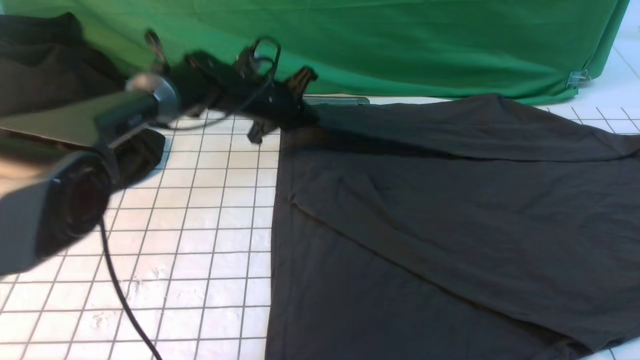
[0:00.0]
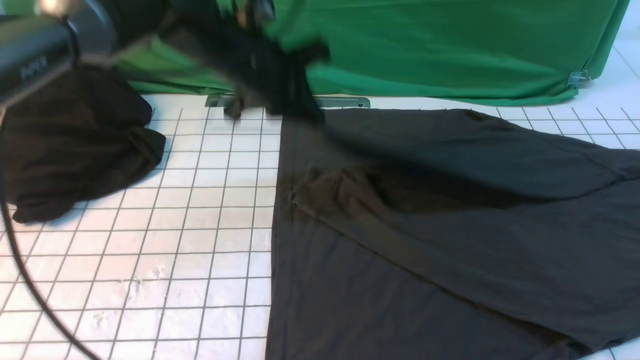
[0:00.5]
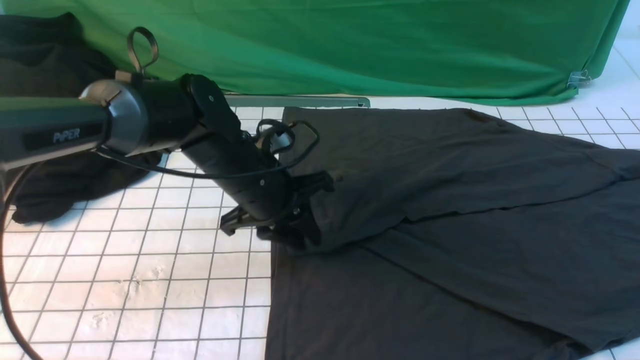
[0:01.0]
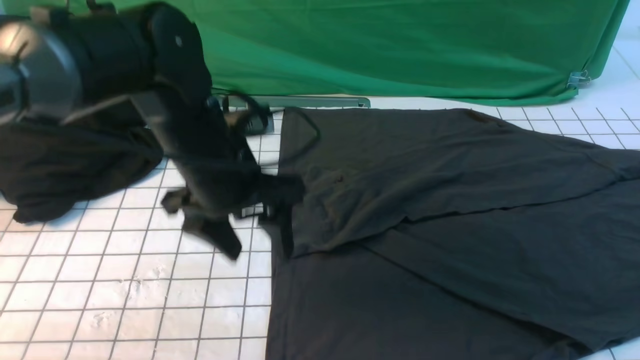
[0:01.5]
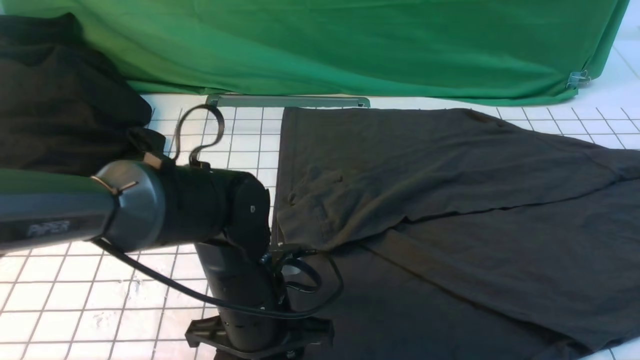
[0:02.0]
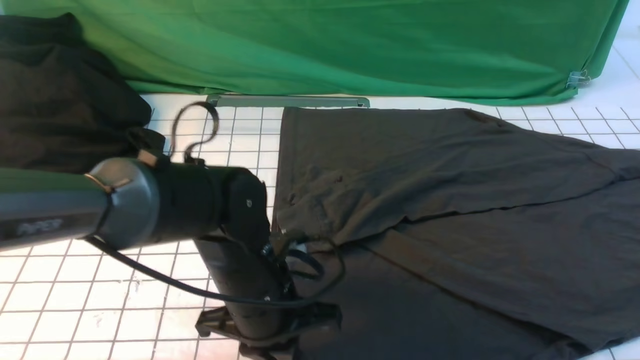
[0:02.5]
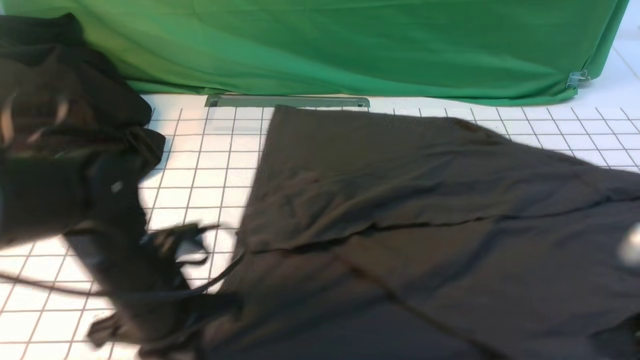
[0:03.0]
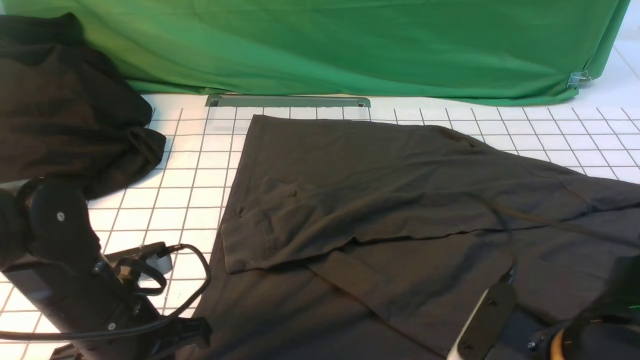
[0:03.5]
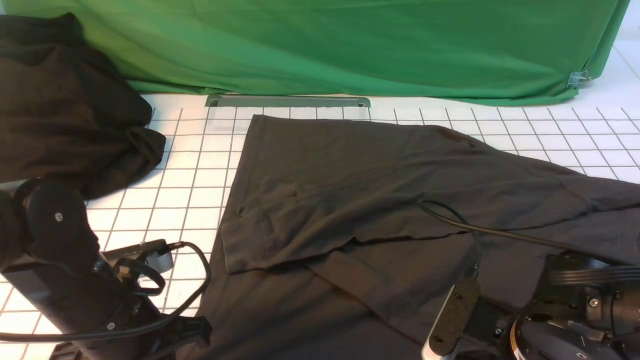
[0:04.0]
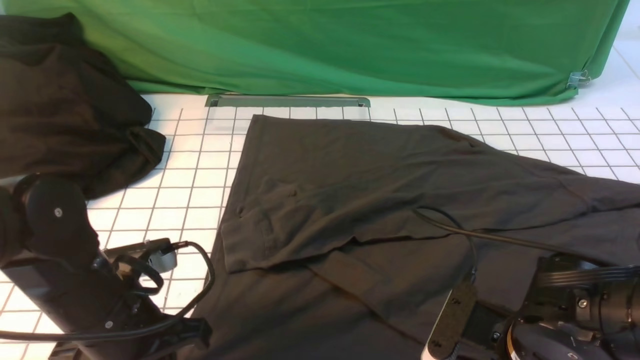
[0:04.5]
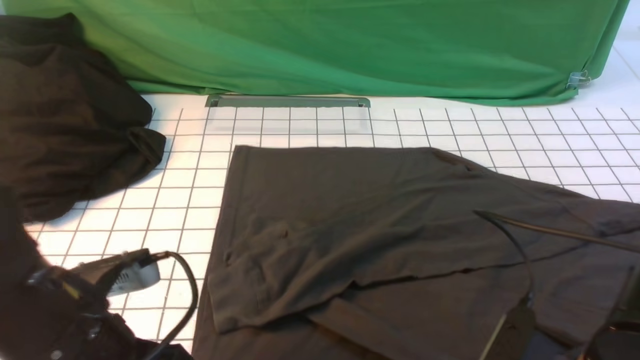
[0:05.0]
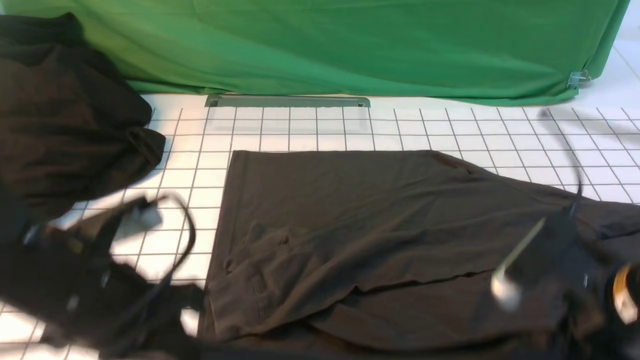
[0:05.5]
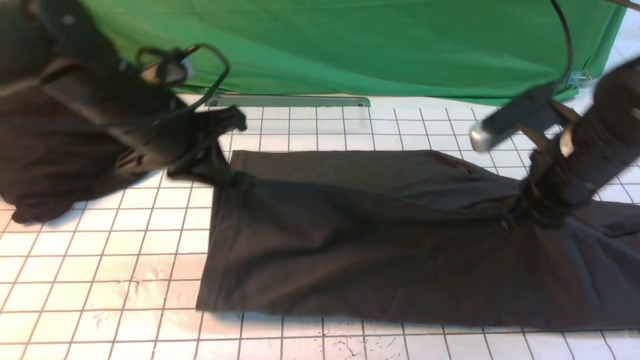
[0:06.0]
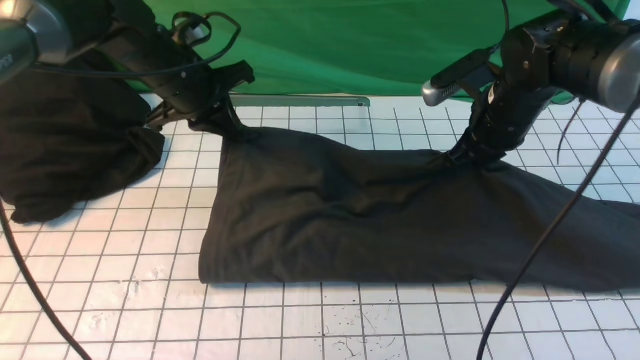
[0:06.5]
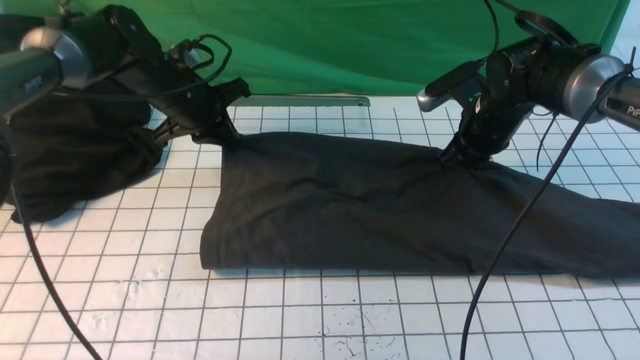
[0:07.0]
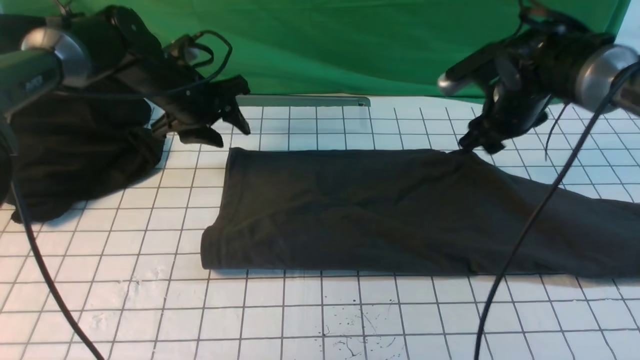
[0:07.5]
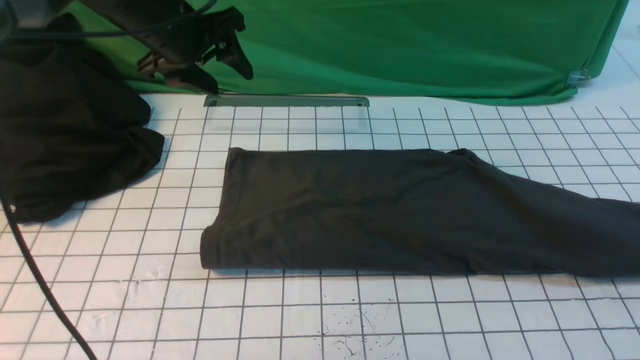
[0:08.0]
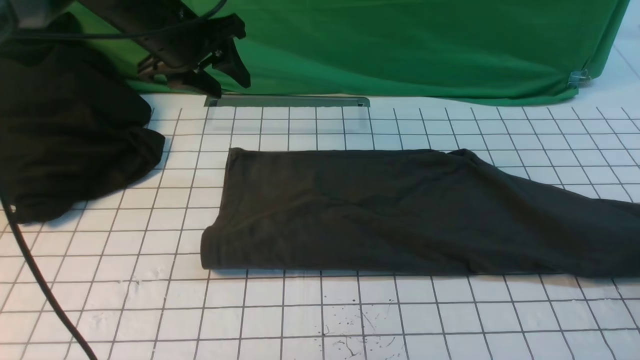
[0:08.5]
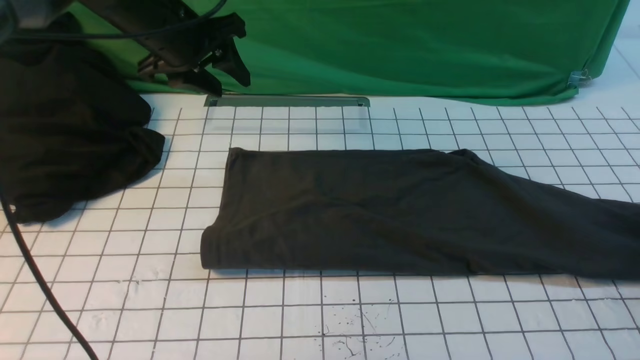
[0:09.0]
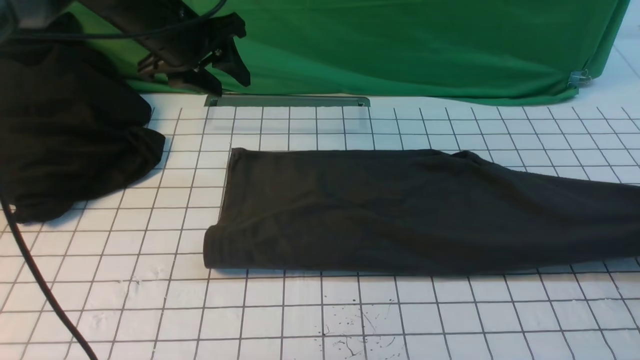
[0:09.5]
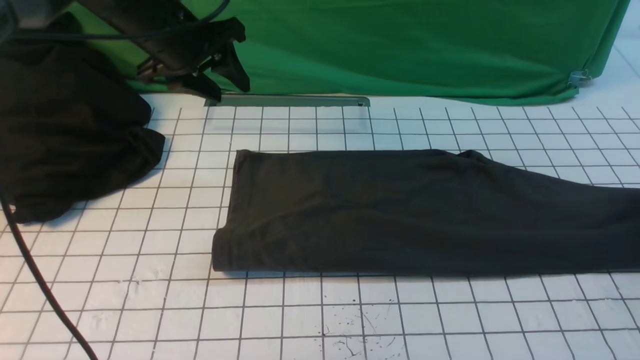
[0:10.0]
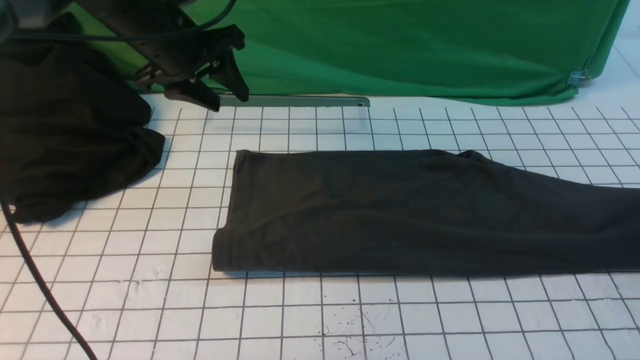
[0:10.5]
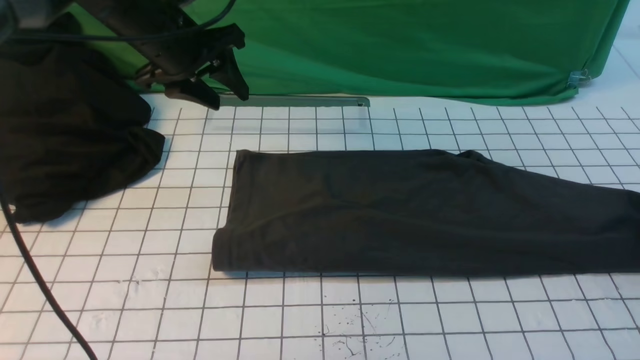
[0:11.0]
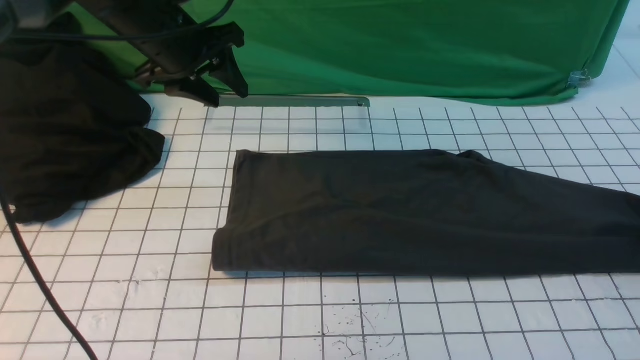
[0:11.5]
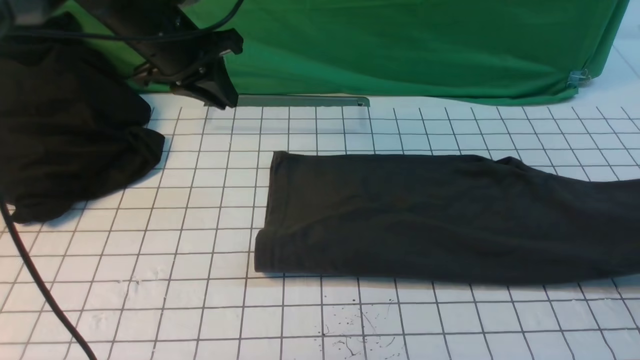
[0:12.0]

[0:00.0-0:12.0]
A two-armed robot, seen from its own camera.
Step, 0:00.0 to 0:01.0: use the left arm to drag and drop the cuff onto the cuff closest to the left arm.
Step, 0:01.5 to 0:04.0: use both arms simultaneously to clamp the lower edge of the clothing fabric.
Step, 0:05.0 to 0:07.0: use both arms to drag the lower edge of the fabric forward and fold it over the upper edge.
Step, 0:07.5 to 0:11.5: use the right arm to clamp the right edge of the fabric.
0:00.0 to 0:02.0: The left gripper travels backward by roughly 30 cm, and opens its fingers.
0:02.0 to 0:04.0: The left gripper goes some 10 cm to the left, and closes its fingers. Meanwhile the right gripper goes some 20 cm to the left and downward.
0:04.0 to 0:06.0: Both grippers travel together forward and upward, roughly 20 cm. The right gripper closes its fingers.
0:06.0 to 0:08.0: The left gripper goes roughly 10 cm forward, and opens its fingers. The right gripper heads to the right, covering approximately 20 cm.
0:08.0 to 0:10.0: The right gripper is displaced downward and to the right by roughly 20 cm, and opens.
0:10.0 to 0:12.0: The left gripper closes, while the right gripper moves upward, approximately 10 cm, and closes its fingers.

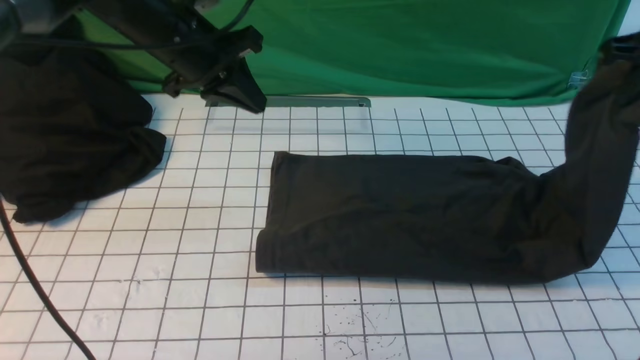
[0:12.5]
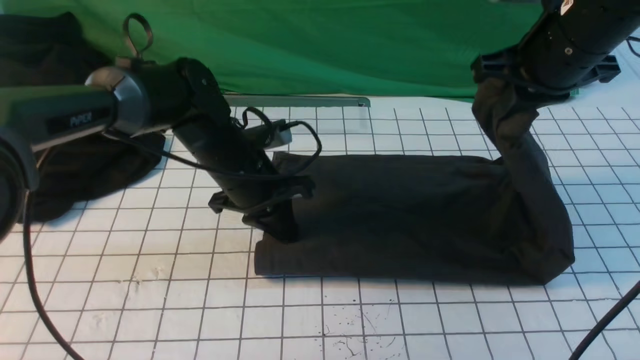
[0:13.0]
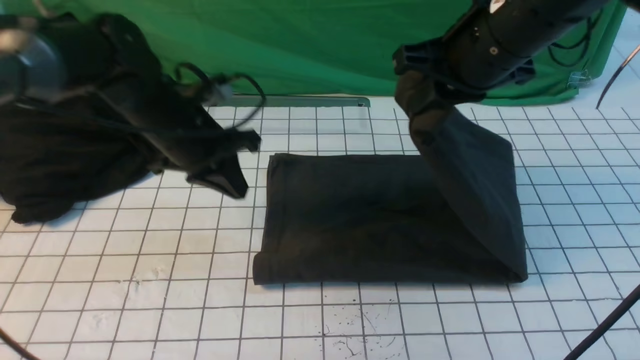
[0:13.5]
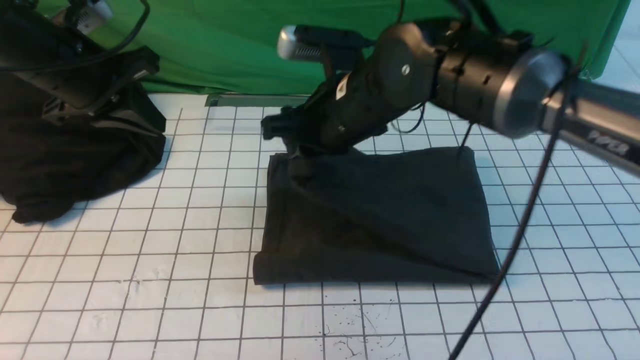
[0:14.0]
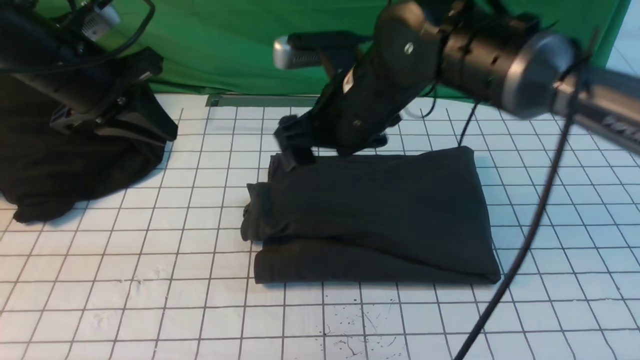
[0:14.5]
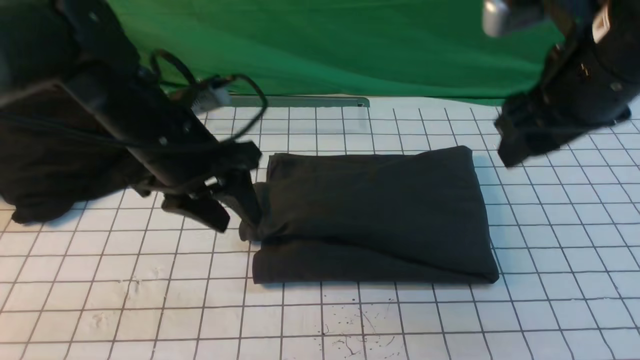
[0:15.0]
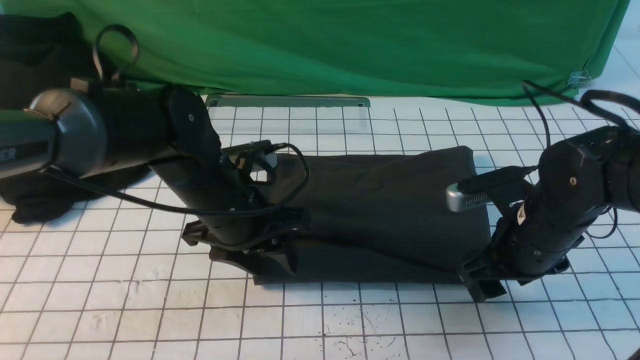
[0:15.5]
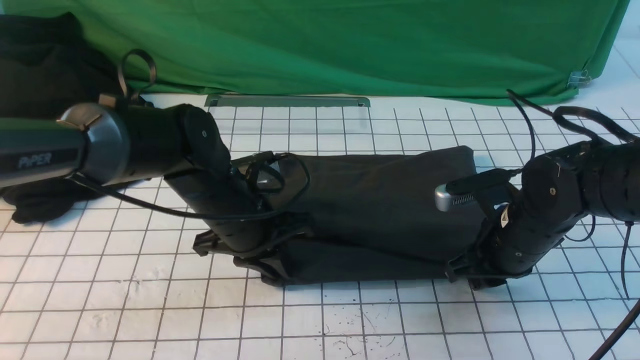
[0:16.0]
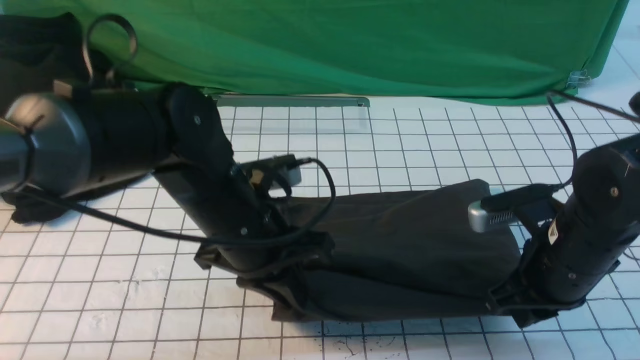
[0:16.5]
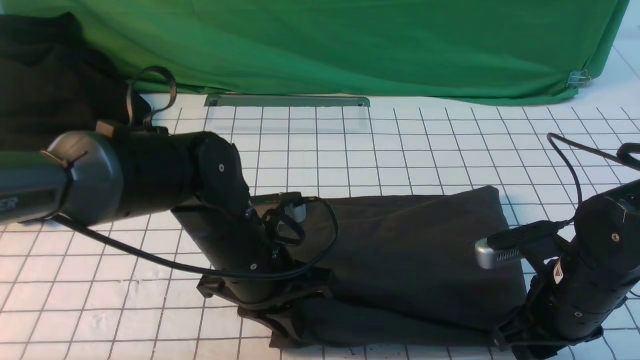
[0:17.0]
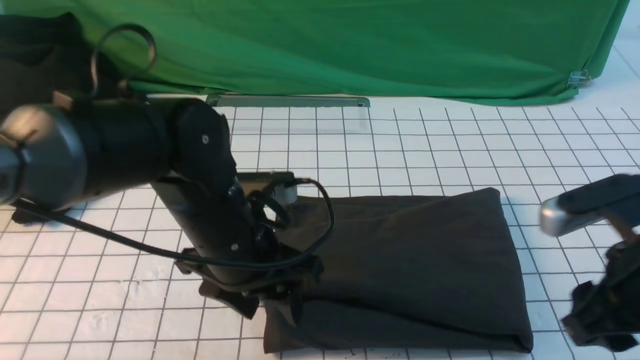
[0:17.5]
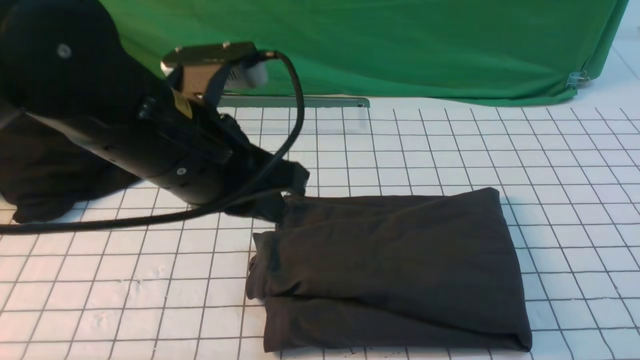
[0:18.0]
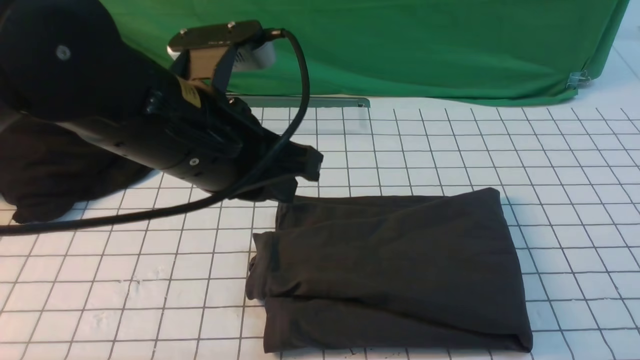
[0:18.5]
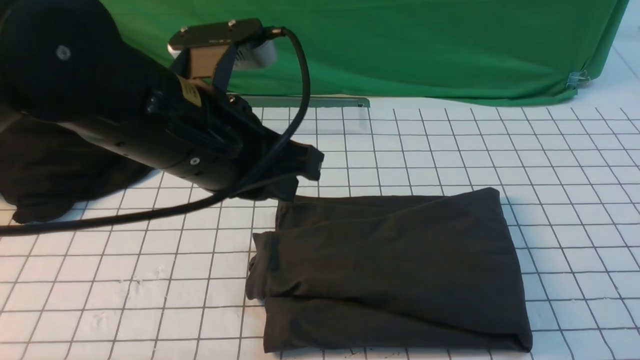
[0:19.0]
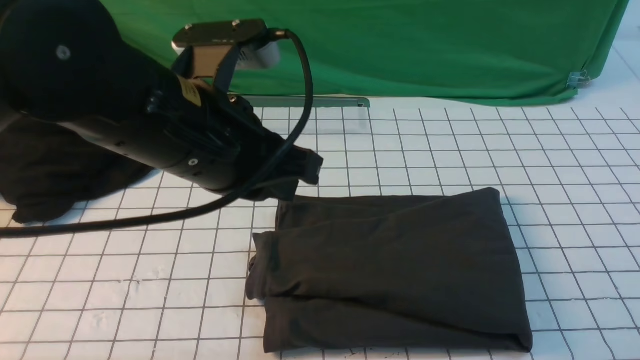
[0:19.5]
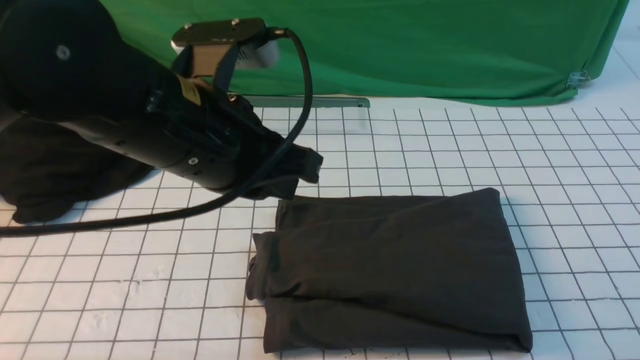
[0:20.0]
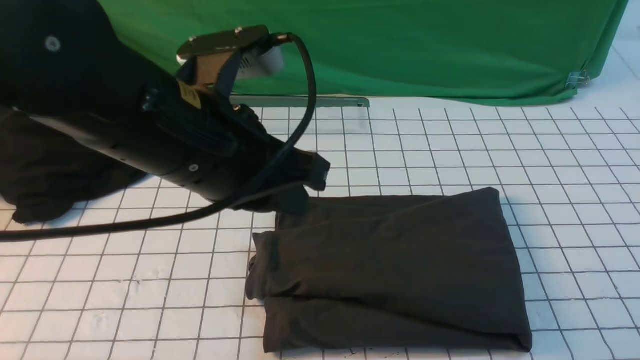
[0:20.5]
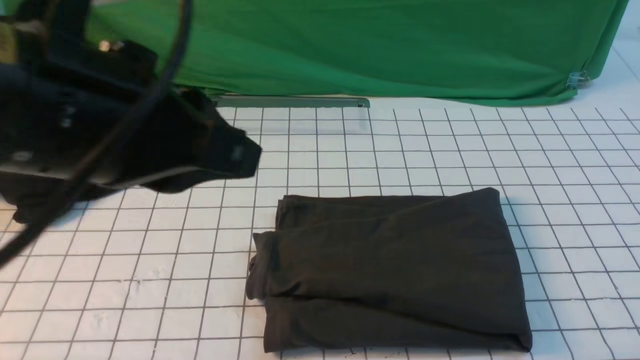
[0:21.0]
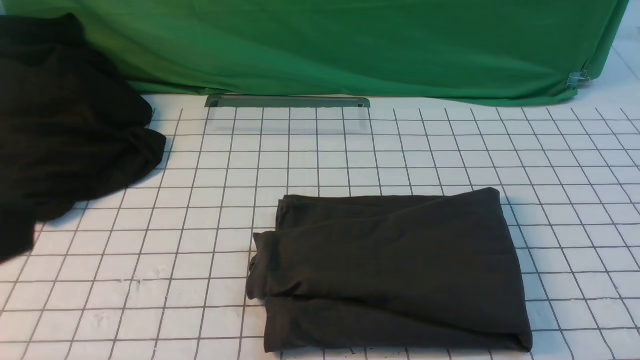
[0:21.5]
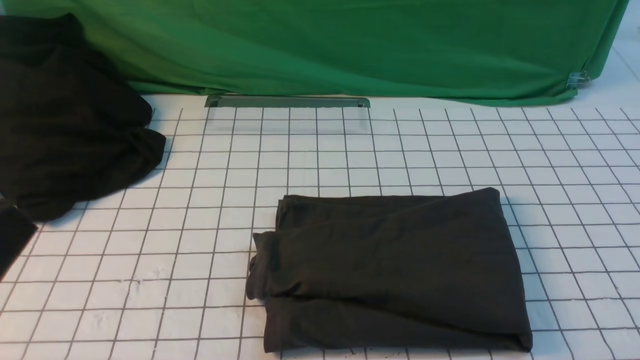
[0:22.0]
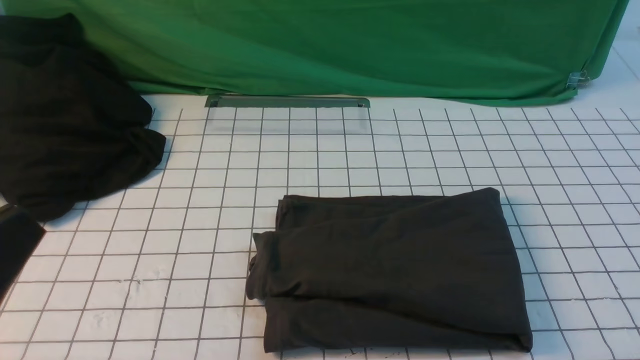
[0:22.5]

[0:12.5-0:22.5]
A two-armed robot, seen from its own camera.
Step, 0:12.5 to 0:14.0: use the right arm to drag the right edge of the fabric to the left and folds it over the left edge.
0:12.5 to 0:14.5: The right gripper heads to the left, covering some 25 cm, and opens its fingers, while the left gripper is displaced to the left and backward by approximately 10 cm.
0:14.5 to 0:16.5: The left gripper moves to the right, backward and downward, some 20 cm, and opens, then closes again. Meanwhile the right gripper is displaced to the right, downward and backward by approximately 20 cm, and closes its fingers.
0:16.5 to 0:18.5: The left gripper is displaced upward by approximately 15 cm, and opens, then closes once more; the right gripper travels backward, upward and to the right by about 30 cm, and opens, then closes again.
0:18.5 to 0:20.5: The right gripper shifts some 15 cm downward.
0:20.5 to 0:22.5: The left gripper shifts some 25 cm backward and to the left.
